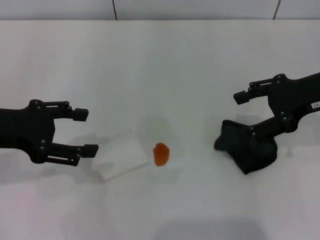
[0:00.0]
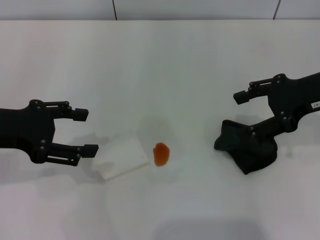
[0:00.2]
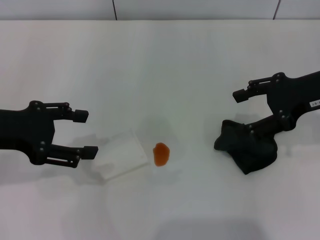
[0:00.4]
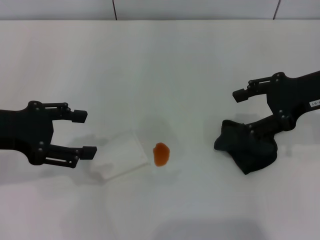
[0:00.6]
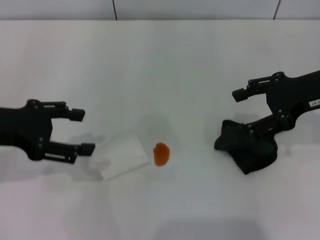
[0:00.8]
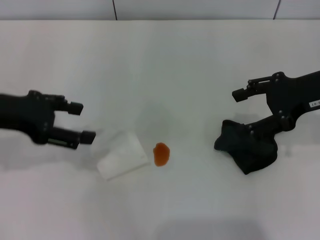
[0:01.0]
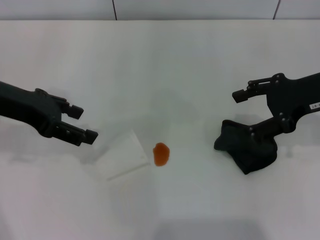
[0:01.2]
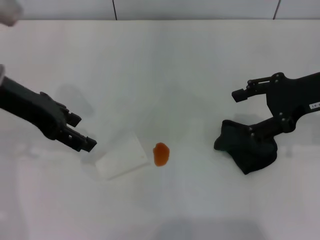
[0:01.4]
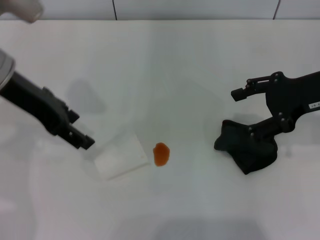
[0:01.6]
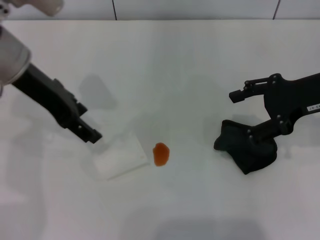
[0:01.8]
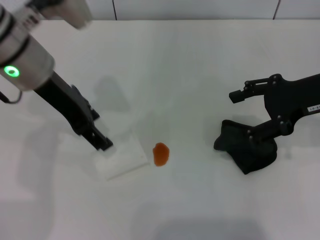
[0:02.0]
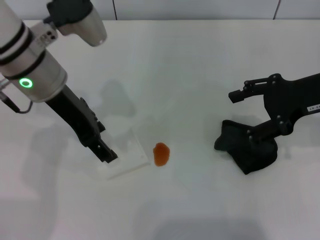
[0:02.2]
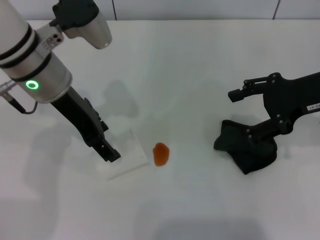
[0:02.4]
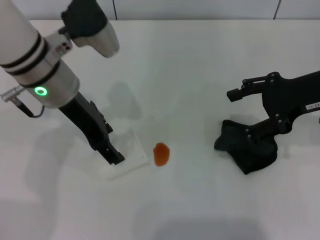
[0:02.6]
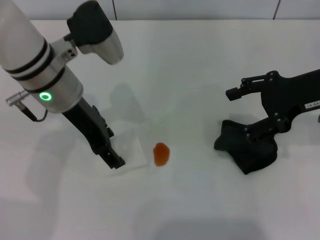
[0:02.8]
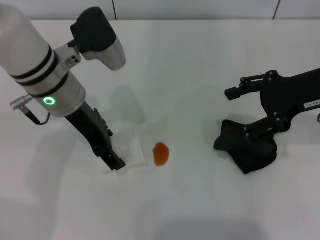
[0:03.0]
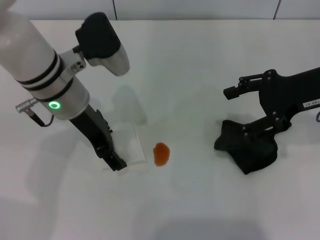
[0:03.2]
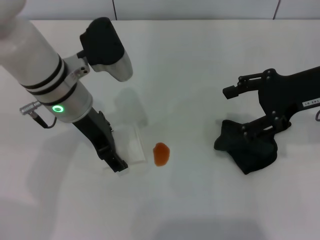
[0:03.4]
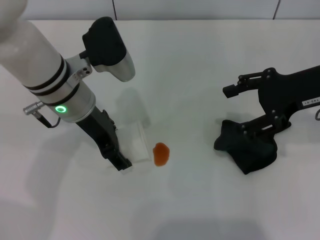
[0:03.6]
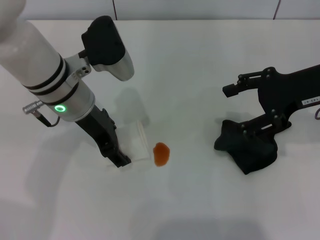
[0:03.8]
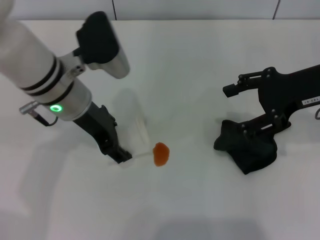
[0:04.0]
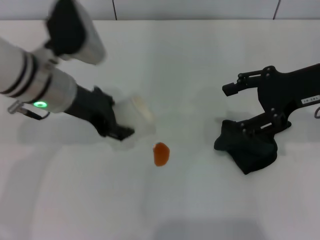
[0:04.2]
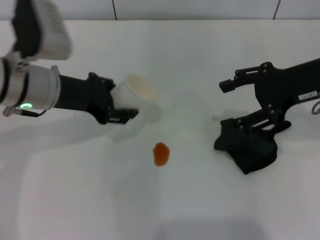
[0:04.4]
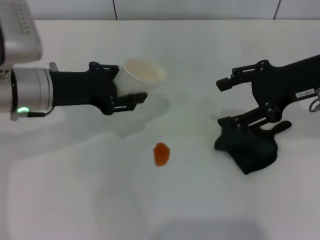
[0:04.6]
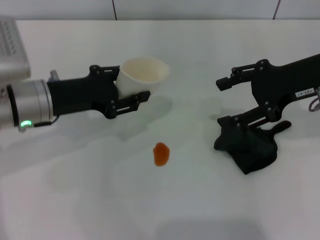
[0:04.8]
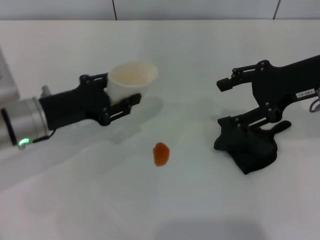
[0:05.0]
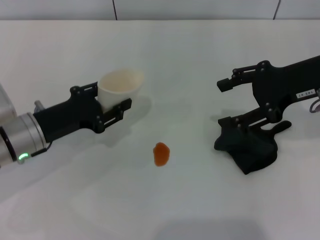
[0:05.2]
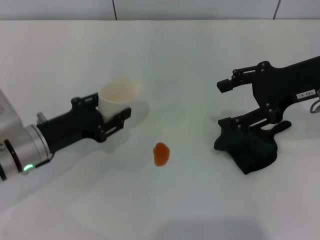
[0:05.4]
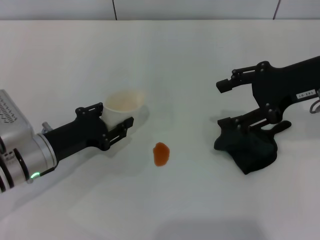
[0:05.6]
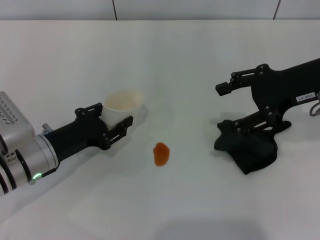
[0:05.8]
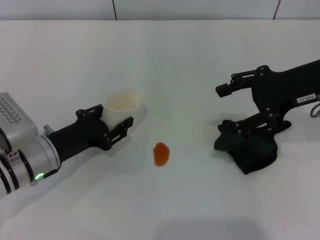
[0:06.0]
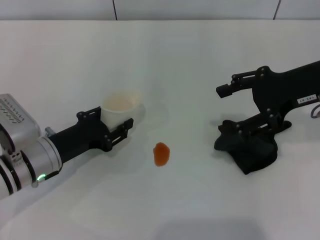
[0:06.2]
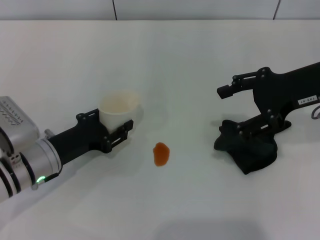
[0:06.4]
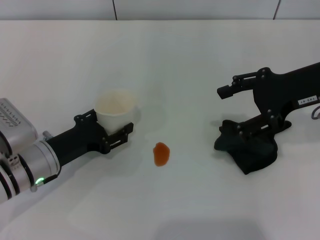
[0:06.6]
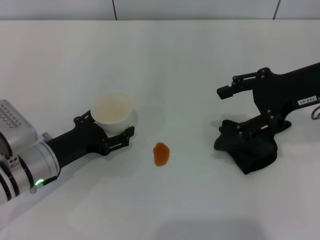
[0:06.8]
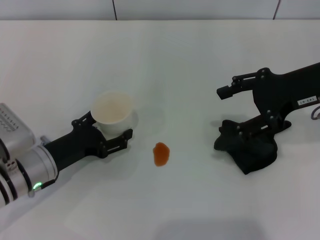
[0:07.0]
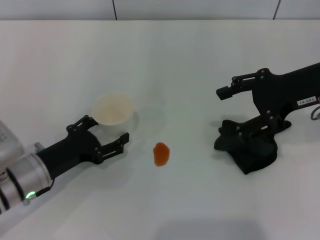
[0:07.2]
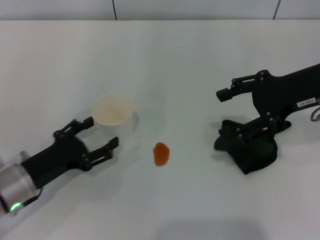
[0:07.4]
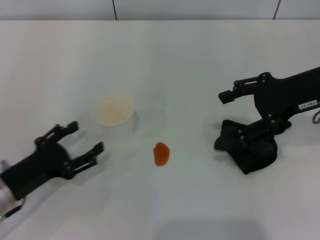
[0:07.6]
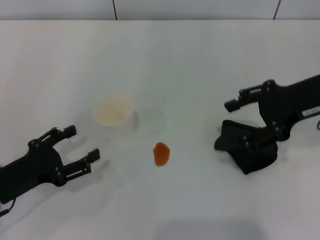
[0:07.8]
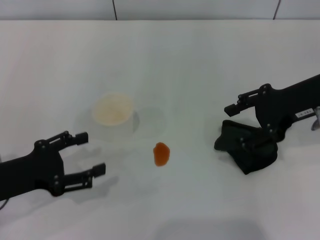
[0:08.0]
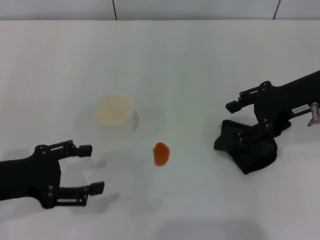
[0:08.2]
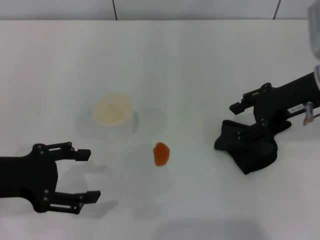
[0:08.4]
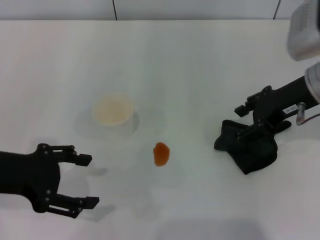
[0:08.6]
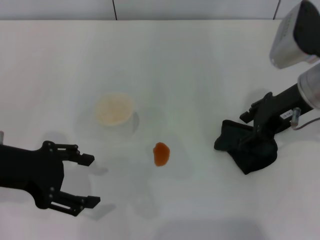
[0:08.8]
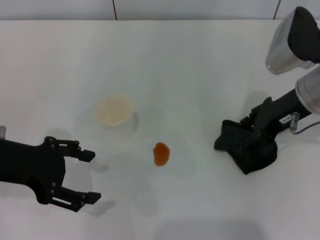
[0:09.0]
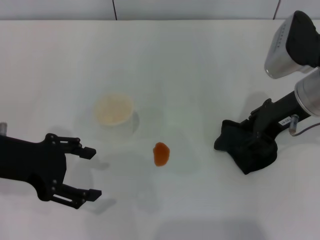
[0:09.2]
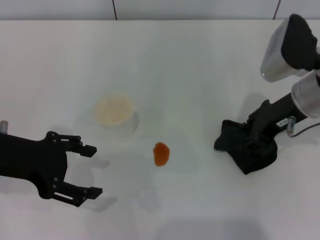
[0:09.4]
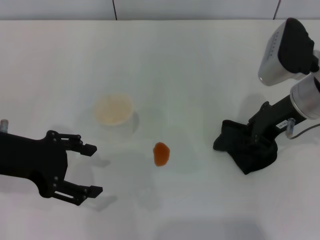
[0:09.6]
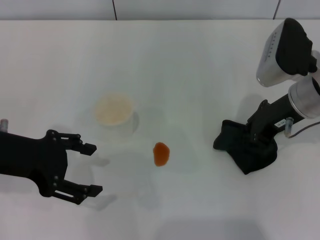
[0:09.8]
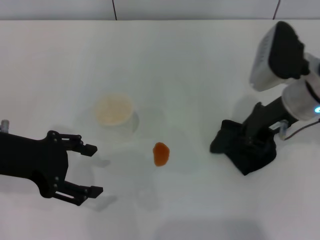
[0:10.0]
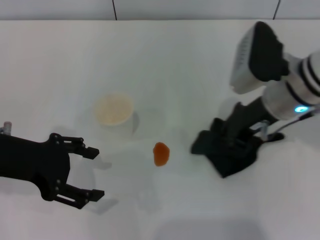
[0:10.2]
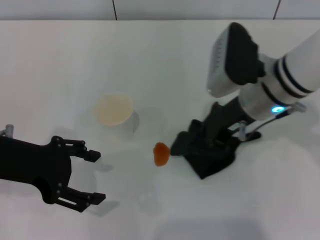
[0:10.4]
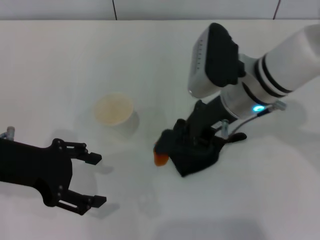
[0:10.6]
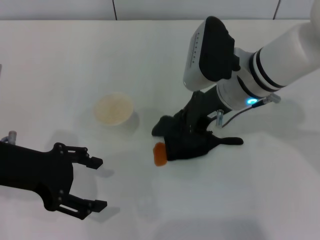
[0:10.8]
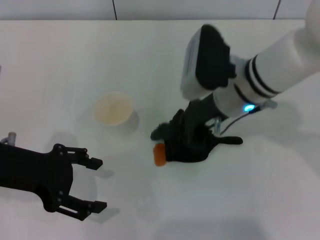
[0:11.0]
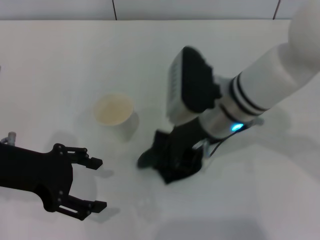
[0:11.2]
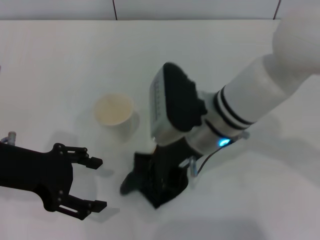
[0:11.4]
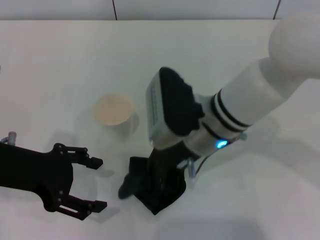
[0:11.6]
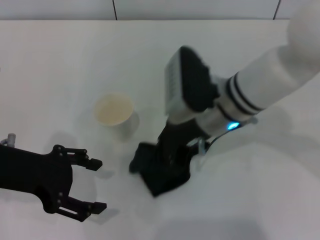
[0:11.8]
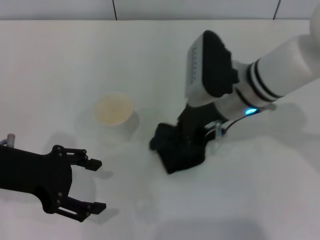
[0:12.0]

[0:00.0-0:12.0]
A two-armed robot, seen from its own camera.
Step, 0:00.0 to 0:03.6: Grasp the paper cup with the left gripper.
Step, 0:03.8 to 0:07.4: Stand the paper cup upright with the left gripper.
Step, 0:07.6 to 0:09.8: Grasp the rag with the right gripper.
0:00.0 to 0:01.6: The left gripper heads forward and to the right, covering about 10 cm.
0:01.6 to 0:03.0: The left gripper travels to the right and downward by some 10 cm.
0:03.0 to 0:04.4: The left gripper shifts some 5 cm to the left.
0:04.4 to 0:06.0: The left gripper travels downward and backward by roughly 15 cm, and closes.
0:06.0 to 0:07.6: The left gripper moves backward and to the left, about 10 cm, and opens.
0:07.6 to 0:09.0: The left gripper shifts some 15 cm upward.
0:09.0 to 0:10.4: The right gripper heads to the left, covering some 10 cm, and closes.
0:10.4 to 0:12.0: The right gripper reaches about 10 cm to the left, then returns.

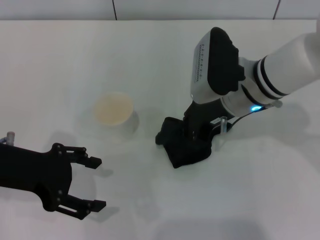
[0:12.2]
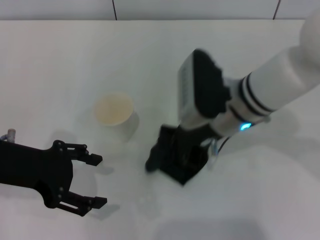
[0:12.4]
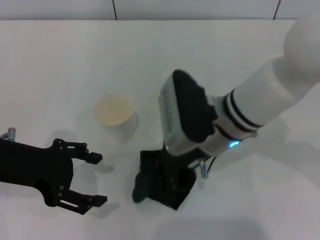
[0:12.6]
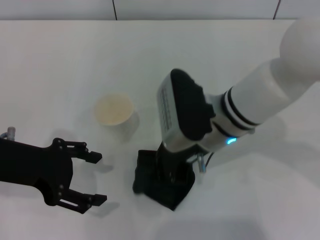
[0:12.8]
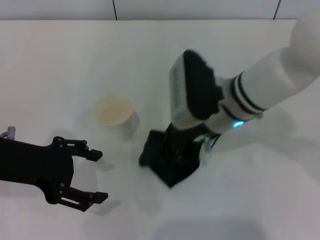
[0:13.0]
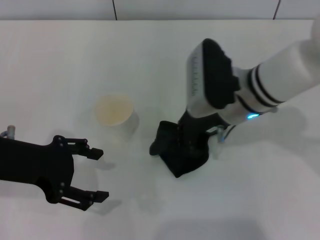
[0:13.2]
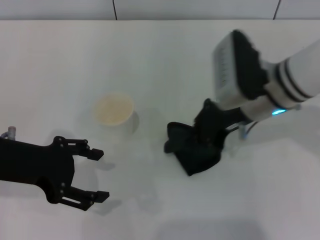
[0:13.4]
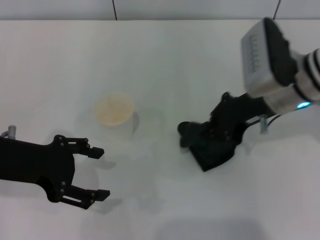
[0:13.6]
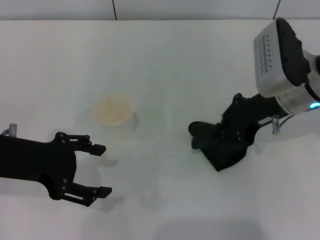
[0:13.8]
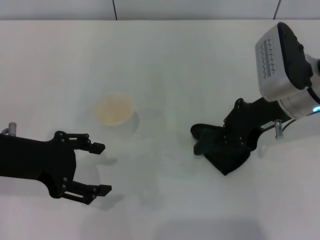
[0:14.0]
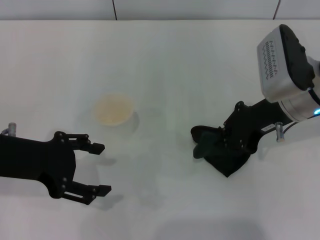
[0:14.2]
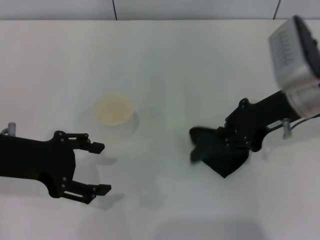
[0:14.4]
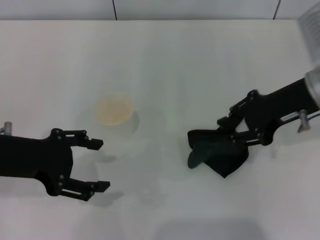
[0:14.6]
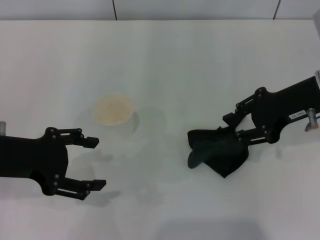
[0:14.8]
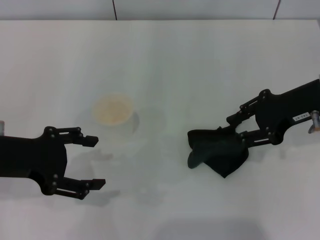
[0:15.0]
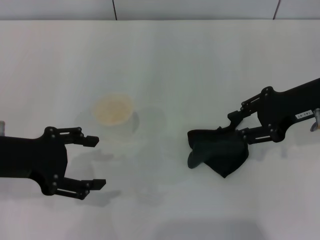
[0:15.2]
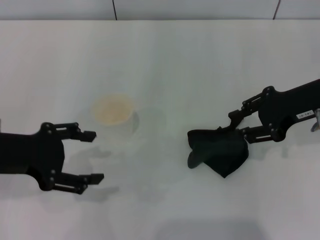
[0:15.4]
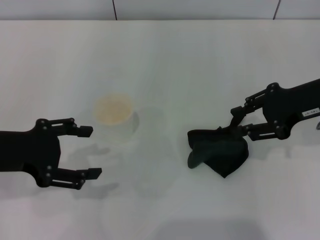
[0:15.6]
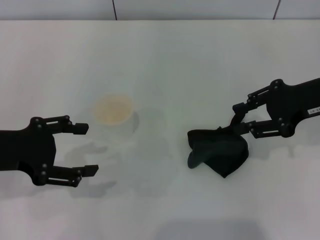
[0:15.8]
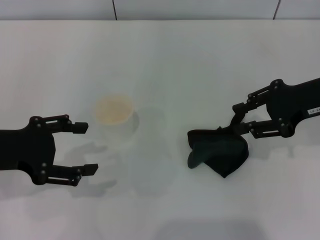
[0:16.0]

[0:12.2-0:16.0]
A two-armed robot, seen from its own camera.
Step, 0:13.2 to 0:15.2: Place the rag on the table with the right gripper.
0:13.4 to 0:14.8: The right gripper heads to the right, covering approximately 10 cm.
0:14.8 to 0:16.0: There are only small adjustments of the grippers.

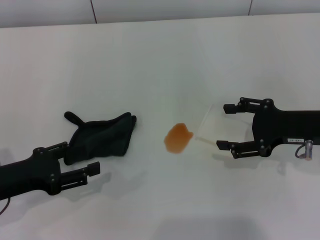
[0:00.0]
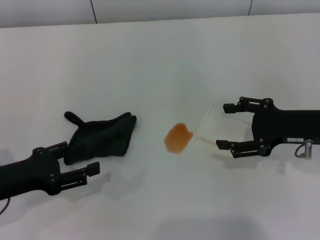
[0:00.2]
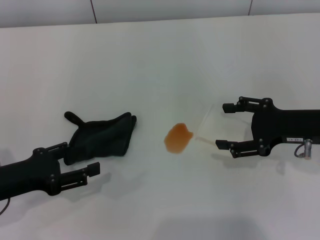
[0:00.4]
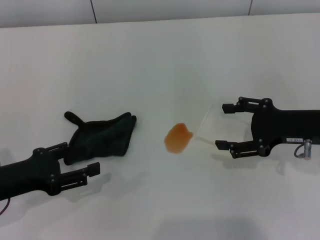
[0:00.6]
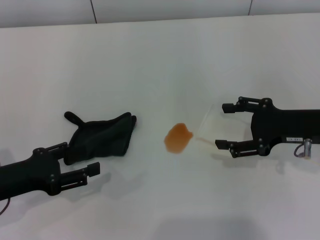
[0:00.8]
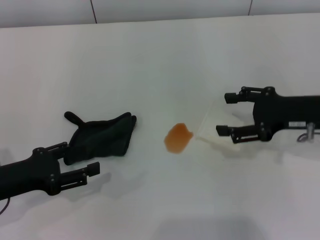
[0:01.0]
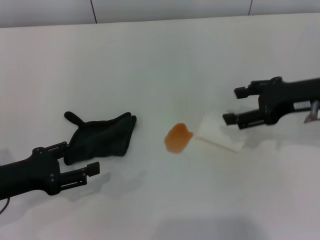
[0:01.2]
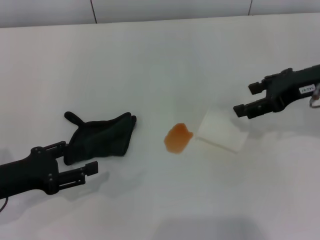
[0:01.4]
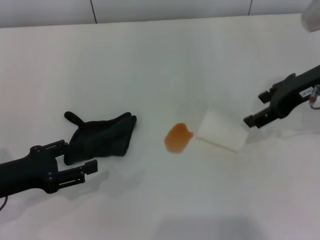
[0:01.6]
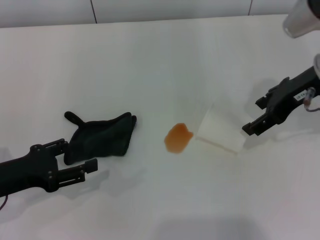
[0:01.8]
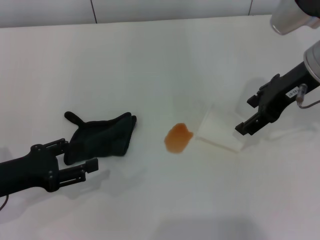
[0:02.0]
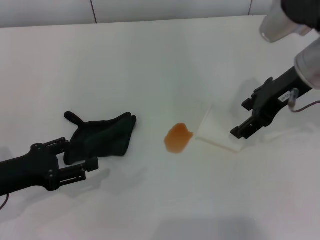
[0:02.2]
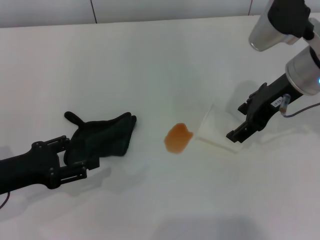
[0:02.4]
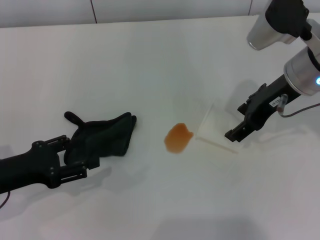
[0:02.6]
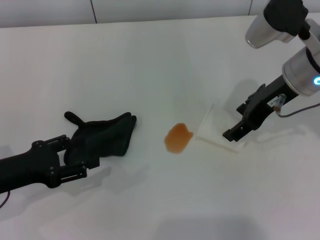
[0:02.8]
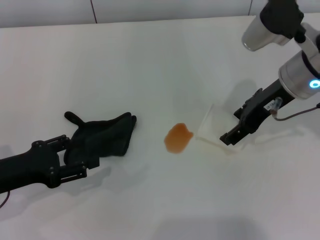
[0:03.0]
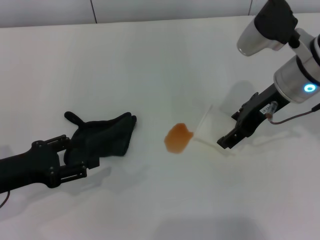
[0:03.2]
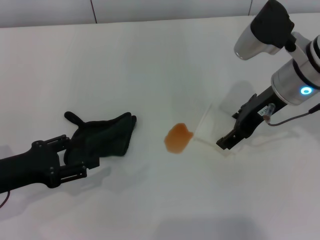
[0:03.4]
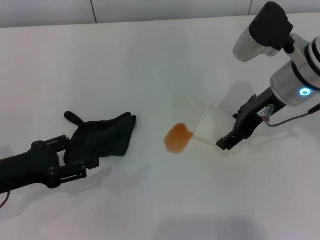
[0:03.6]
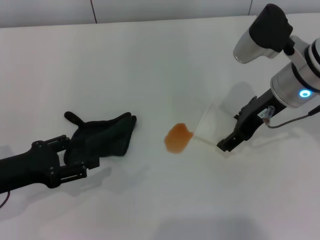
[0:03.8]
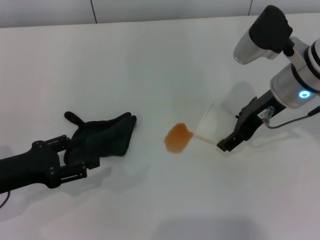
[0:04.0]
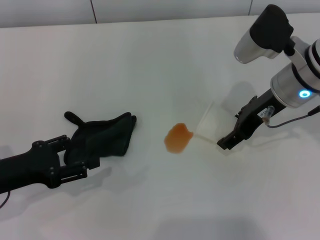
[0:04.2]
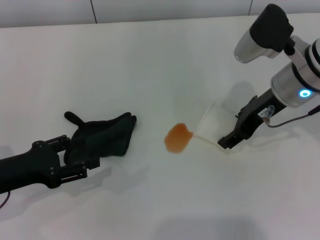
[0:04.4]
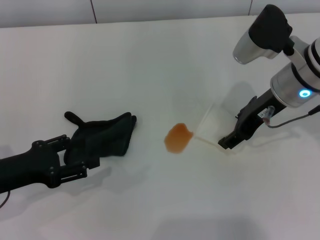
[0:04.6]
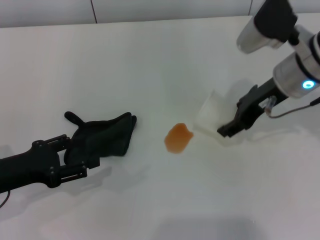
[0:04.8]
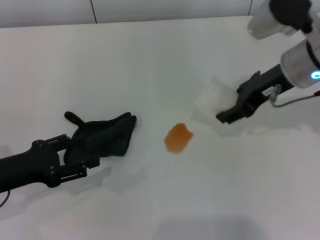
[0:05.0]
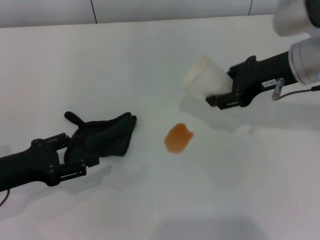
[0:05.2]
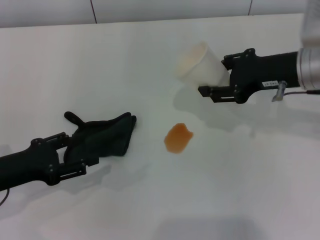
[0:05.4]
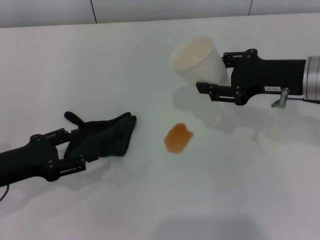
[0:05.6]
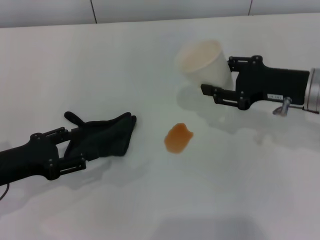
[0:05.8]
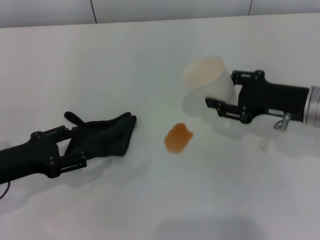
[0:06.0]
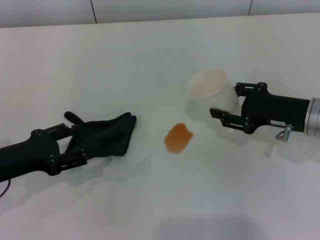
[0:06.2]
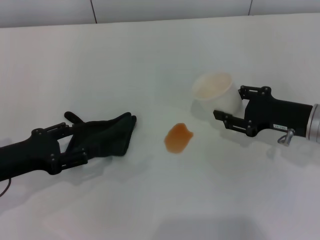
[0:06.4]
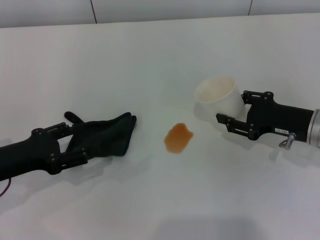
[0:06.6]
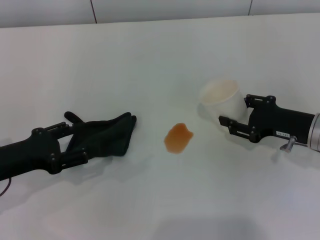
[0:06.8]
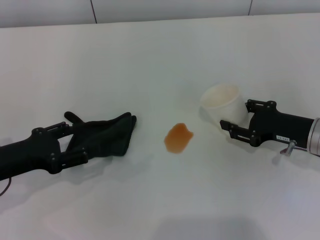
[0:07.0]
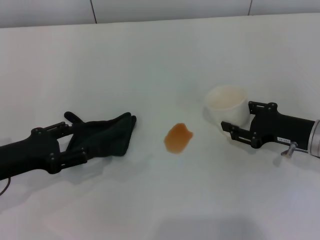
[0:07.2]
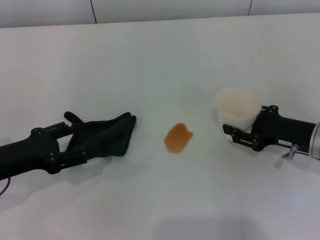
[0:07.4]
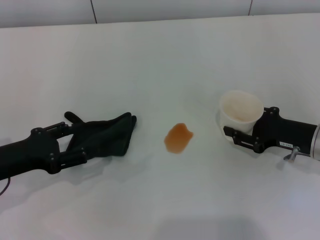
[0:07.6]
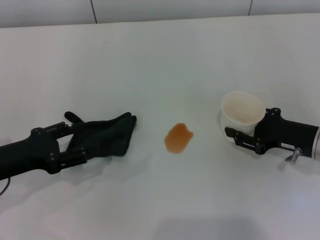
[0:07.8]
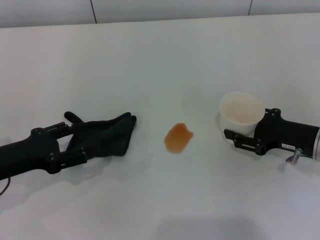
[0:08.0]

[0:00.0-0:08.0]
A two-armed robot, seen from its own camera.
Step, 0:00.0 to 0:04.4: Grasp the paper cup with the right gripper.
0:00.0 to 0:01.6: The right gripper goes roughly 10 cm upward and forward.
0:01.6 to 0:03.2: The right gripper travels to the left by approximately 5 cm.
0:03.2 to 0:04.8: The right gripper closes its fingers.
0:04.8 to 0:06.4: The right gripper is displaced downward, to the right and backward by roughly 15 cm, and closes.
0:06.4 to 0:08.0: There are only small adjustments of the grippers.
